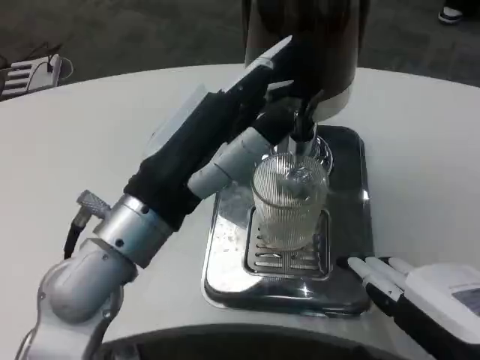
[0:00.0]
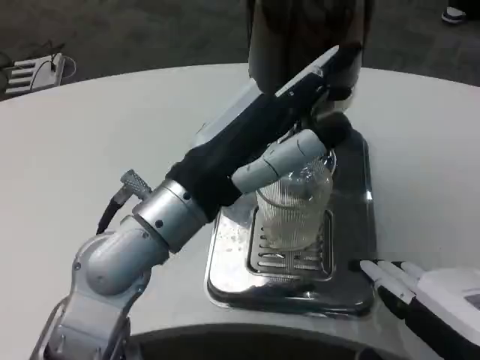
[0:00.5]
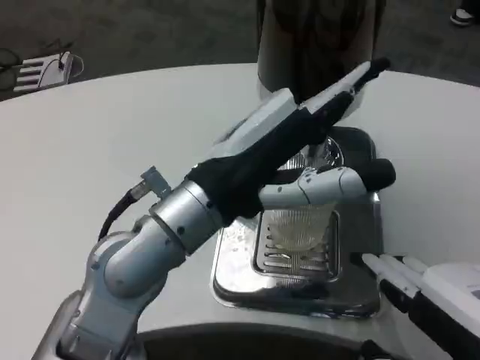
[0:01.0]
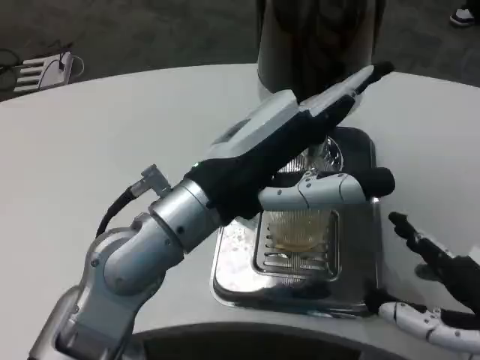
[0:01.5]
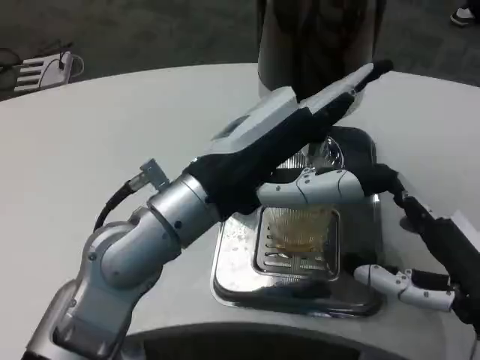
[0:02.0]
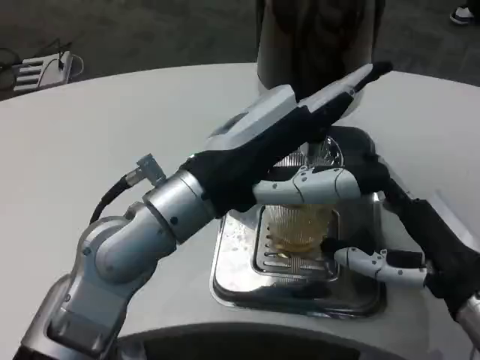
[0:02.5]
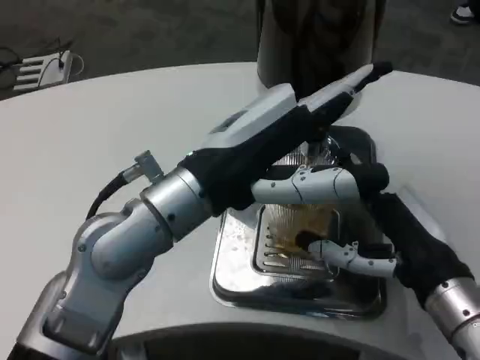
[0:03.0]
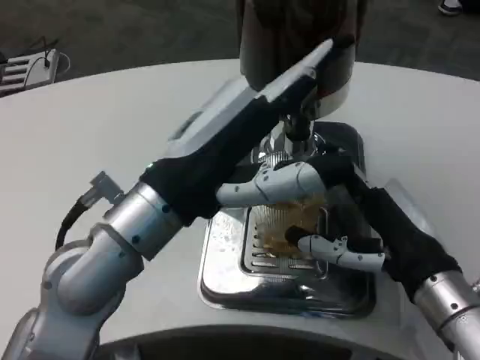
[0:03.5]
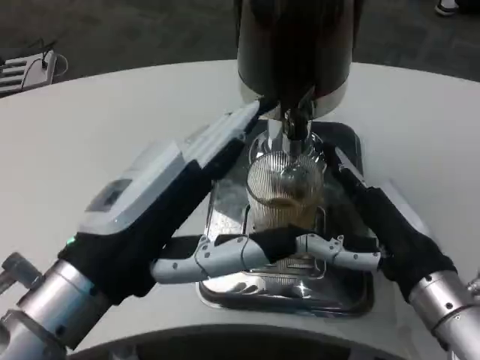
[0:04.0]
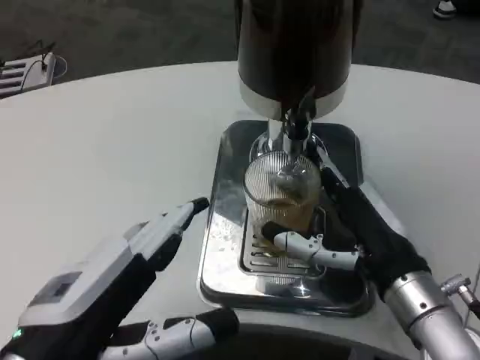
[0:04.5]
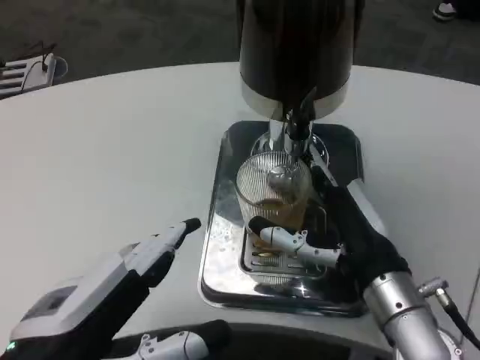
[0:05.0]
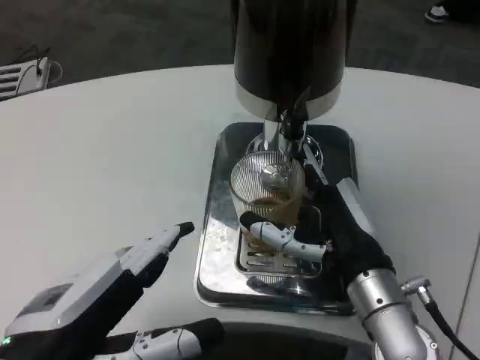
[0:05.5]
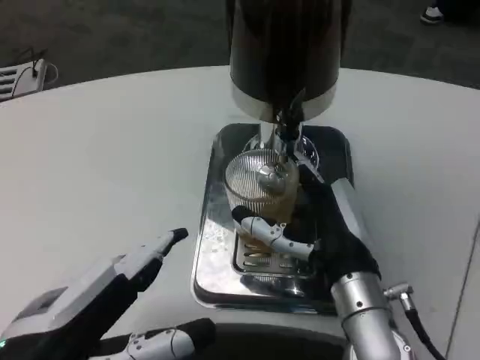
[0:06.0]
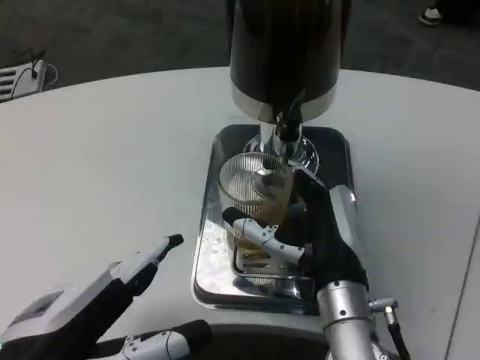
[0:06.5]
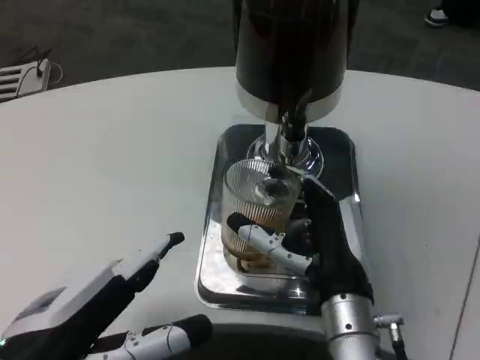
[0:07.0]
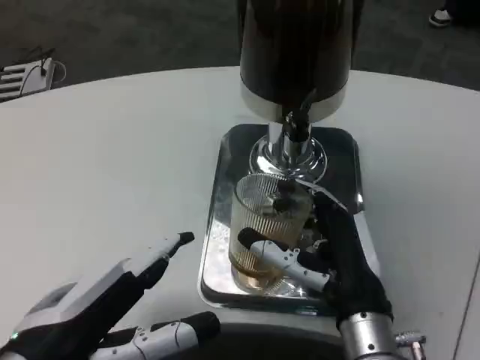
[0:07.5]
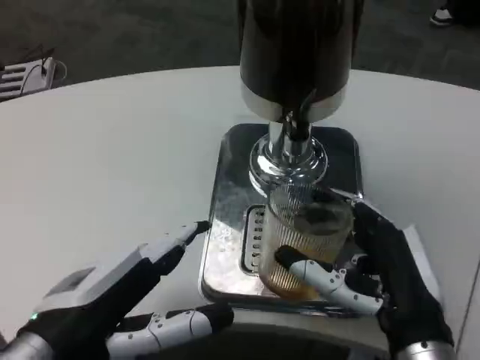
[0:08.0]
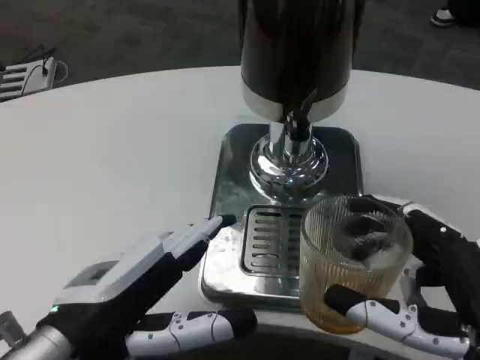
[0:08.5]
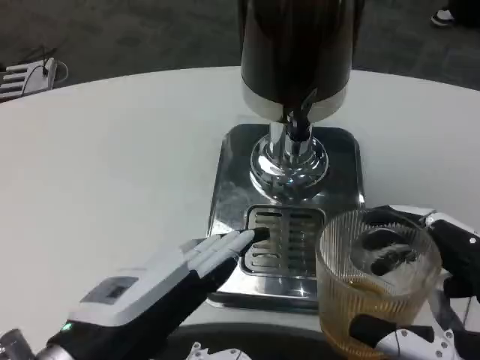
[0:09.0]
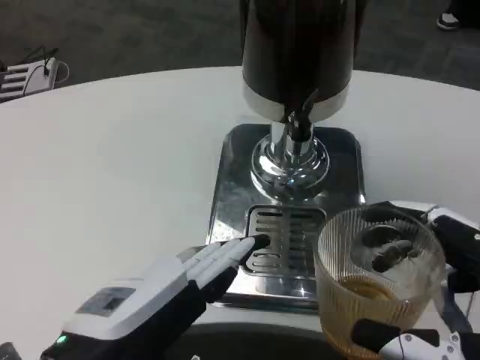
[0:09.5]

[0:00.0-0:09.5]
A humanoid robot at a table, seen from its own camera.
Task of the whole recording: Grasp the cup under the faucet to collect the drink, then remove the cup.
0:00.0 to 0:02.0: The right hand heads forward, covering some 10 cm.
0:02.0 to 0:04.0: The left hand travels backward and to the left by some 10 cm. Meanwhile the right hand heads forward, covering about 5 cm.
0:04.0 to 0:05.5: The right hand moves to the left, roughly 5 cm, while the left hand shifts by approximately 5 cm.
0:07.5 to 0:09.5: The right hand moves backward, to the right and upward, approximately 20 cm.

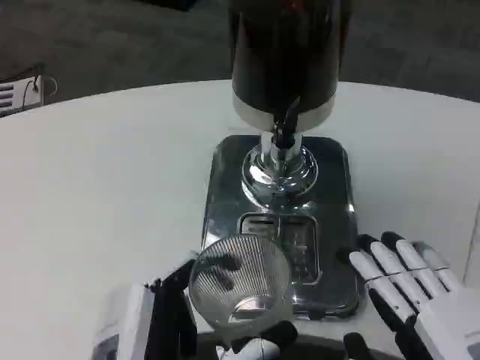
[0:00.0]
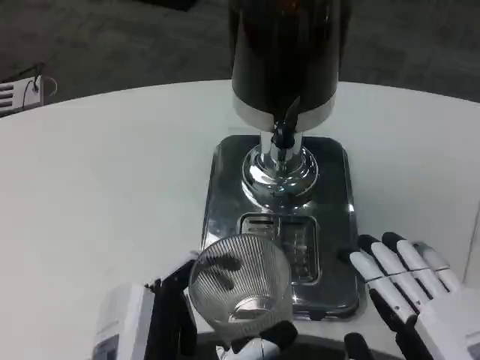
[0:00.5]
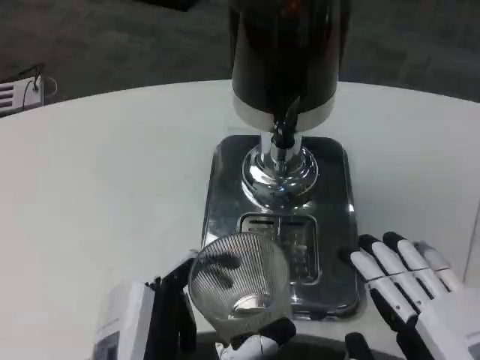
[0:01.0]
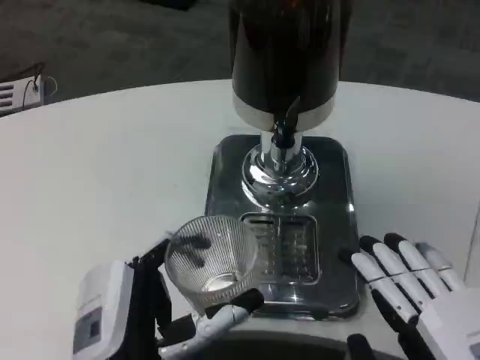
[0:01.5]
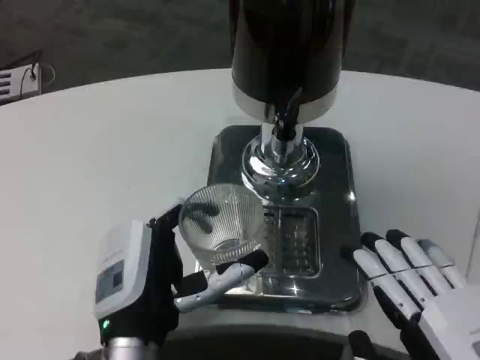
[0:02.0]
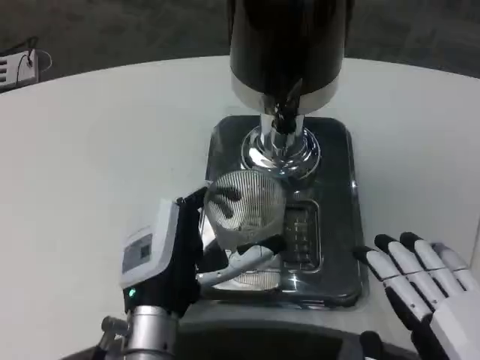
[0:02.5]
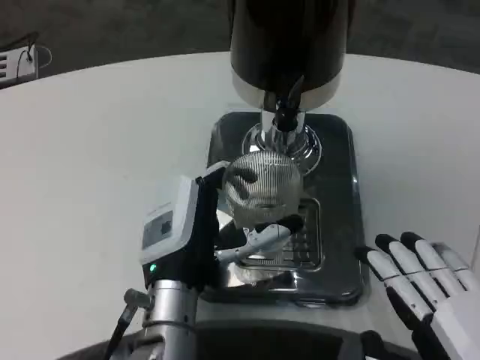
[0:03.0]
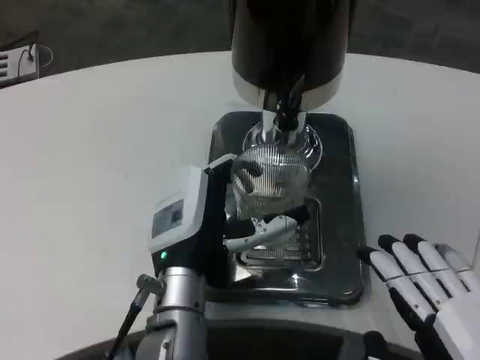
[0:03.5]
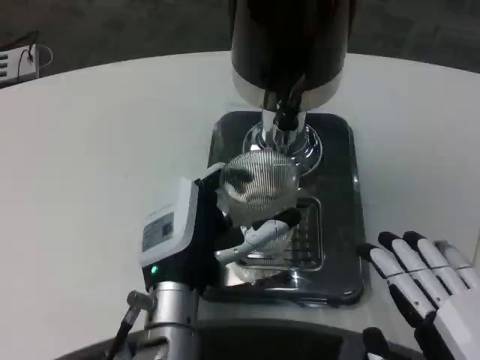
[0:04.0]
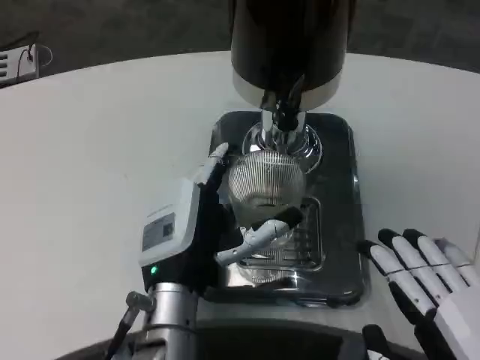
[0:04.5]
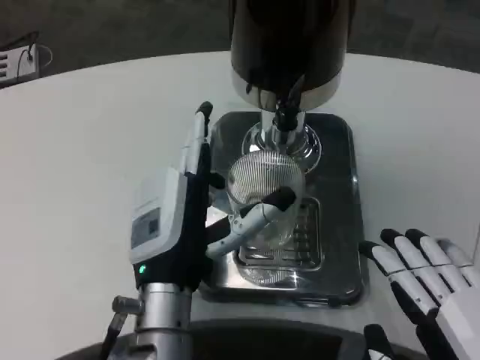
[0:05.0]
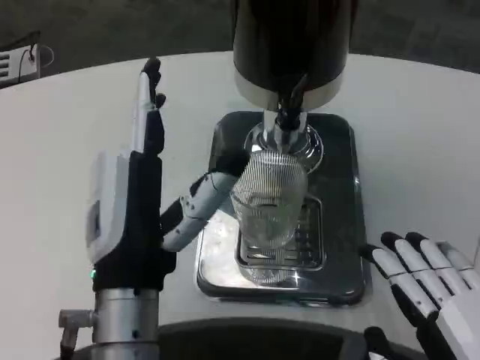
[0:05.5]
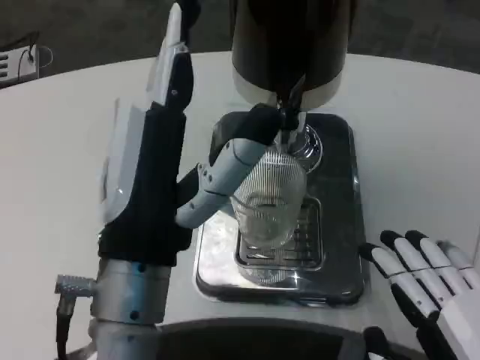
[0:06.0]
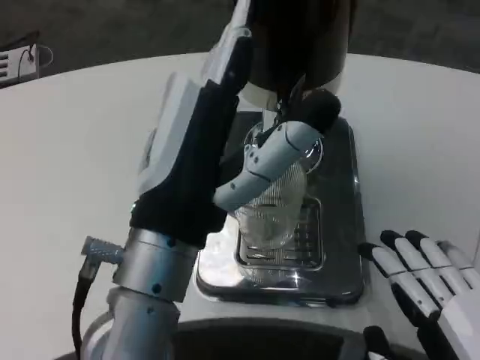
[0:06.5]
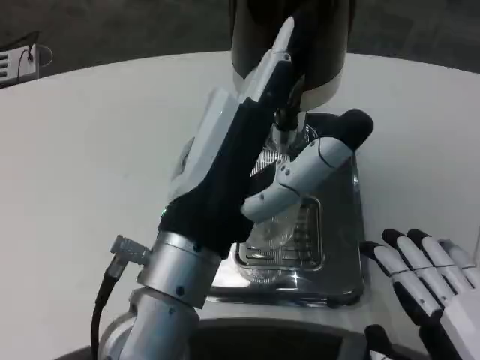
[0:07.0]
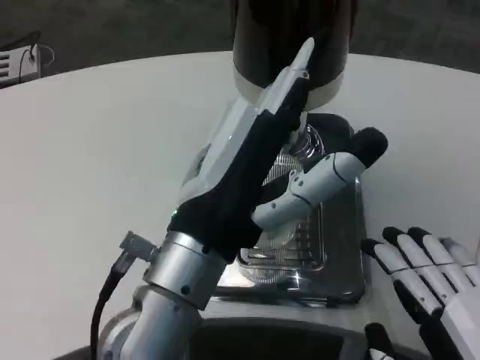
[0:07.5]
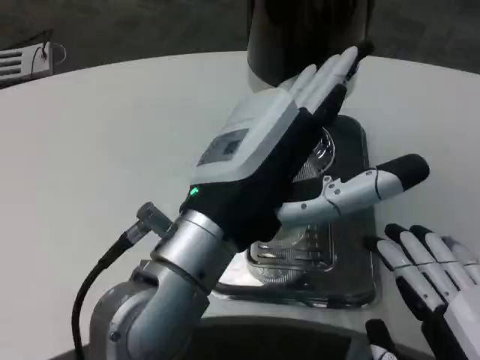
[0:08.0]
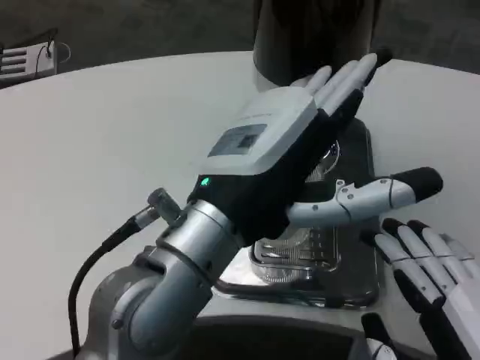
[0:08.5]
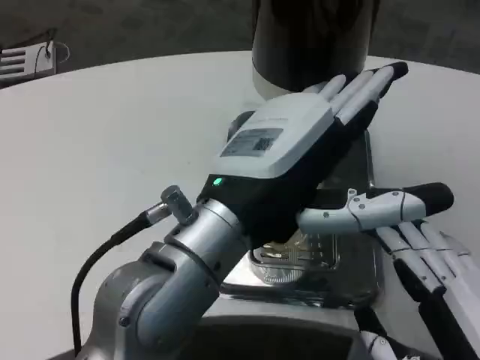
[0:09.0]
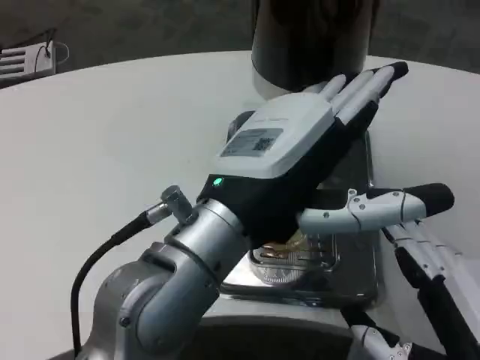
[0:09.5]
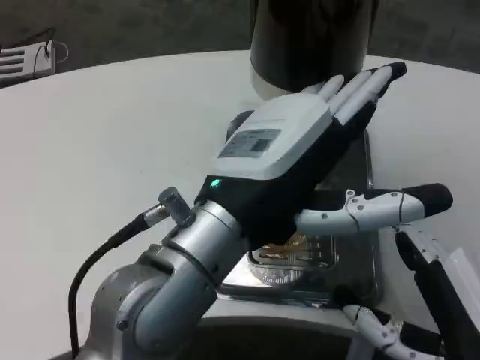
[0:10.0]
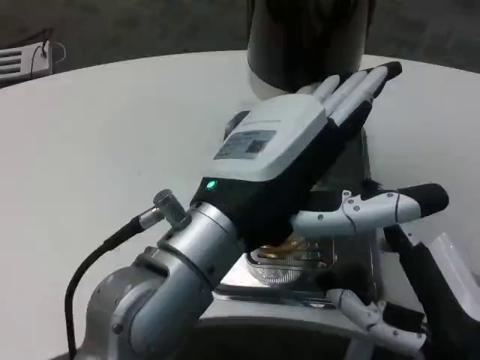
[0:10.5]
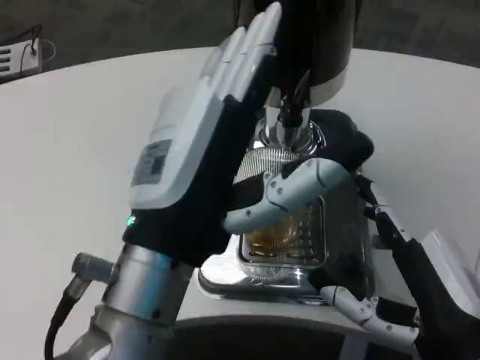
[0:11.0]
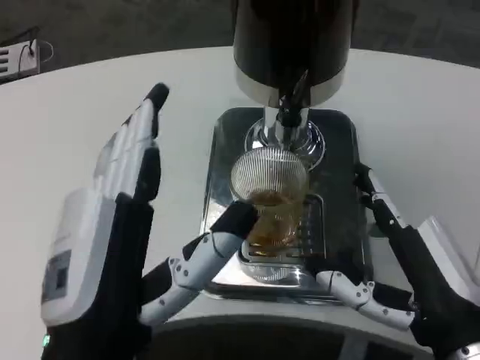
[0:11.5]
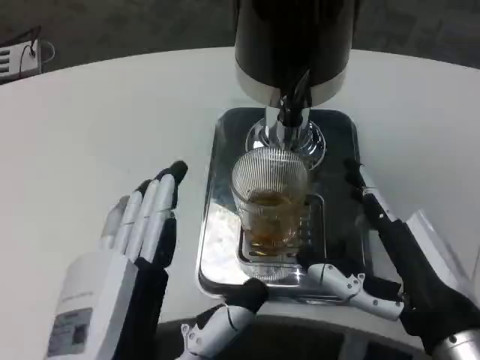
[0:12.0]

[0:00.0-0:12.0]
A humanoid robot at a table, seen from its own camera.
Task of the whole recording: Grasp the cup under the faucet to collect the drink, then remove the cup.
0:00.0 to 0:02.0: The left hand travels forward by some 10 cm.
0:02.0 to 0:04.0: The left hand ends up roughly 5 cm from where it was.
0:04.0 to 0:06.0: The left hand heads upward and backward, covering about 10 cm.
0:10.0 to 0:12.0: The right hand goes approximately 5 cm forward; the left hand is displaced downward, backward and to the left by approximately 15 cm.

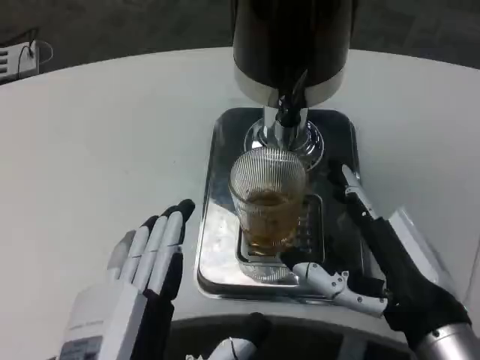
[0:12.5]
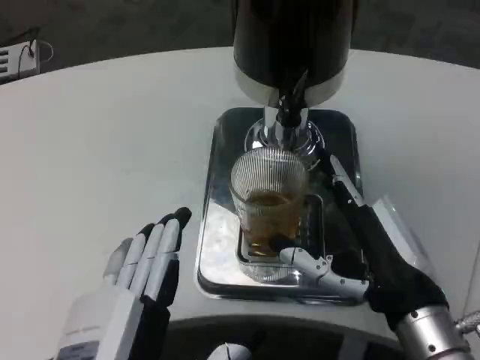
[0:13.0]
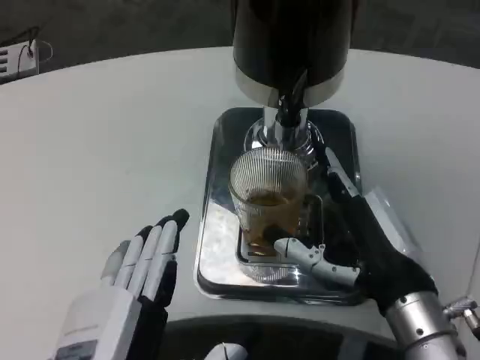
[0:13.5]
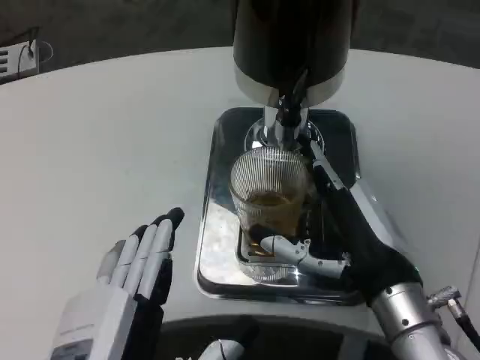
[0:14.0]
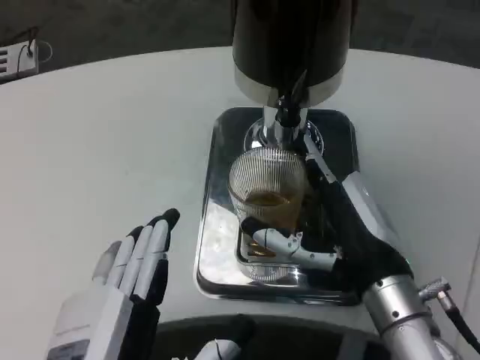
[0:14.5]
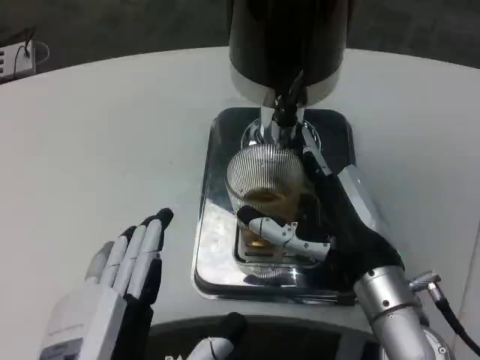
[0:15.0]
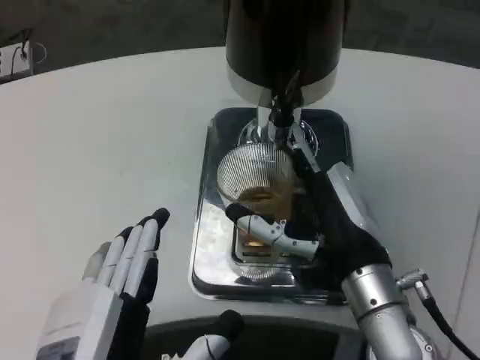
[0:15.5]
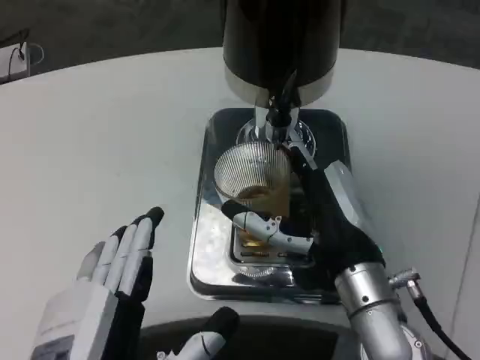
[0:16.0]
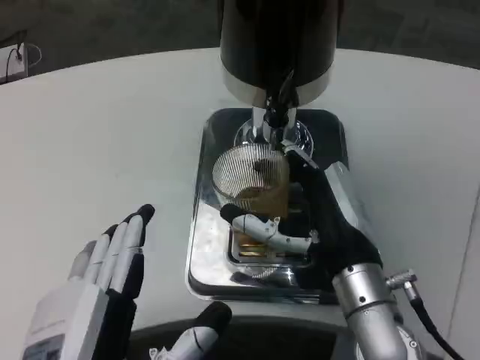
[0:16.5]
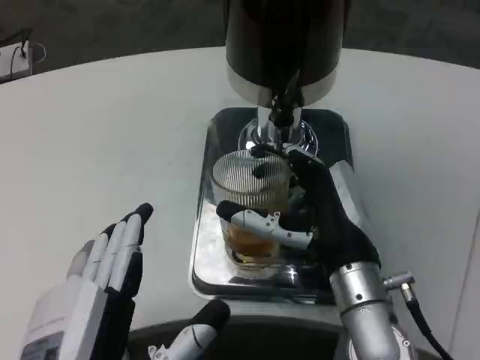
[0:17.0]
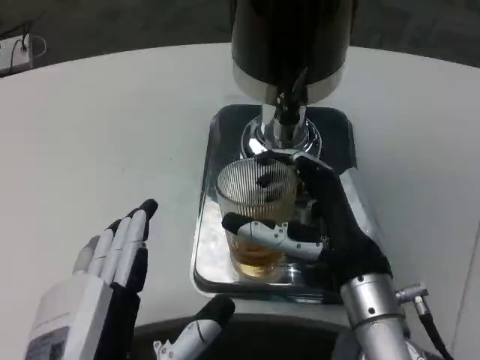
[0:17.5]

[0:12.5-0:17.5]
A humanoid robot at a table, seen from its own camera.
Task of the whole recording: Grasp the cup under the faucet to collect the drink, then remove the cup.
0:12.5 to 0:15.0: The right hand goes approximately 5 cm forward.
0:15.0 to 0:17.5: The hands make only small movements.
